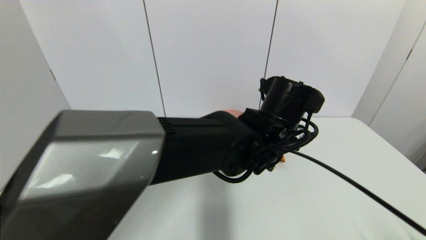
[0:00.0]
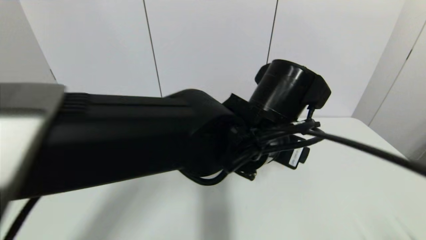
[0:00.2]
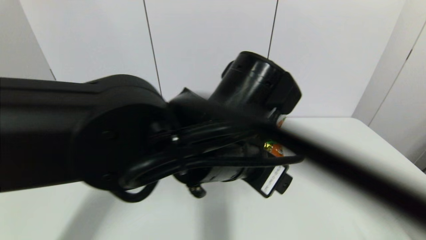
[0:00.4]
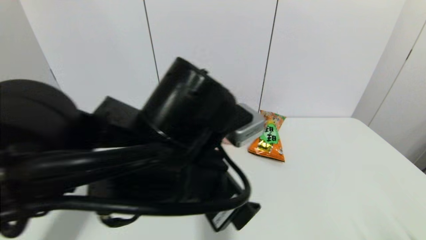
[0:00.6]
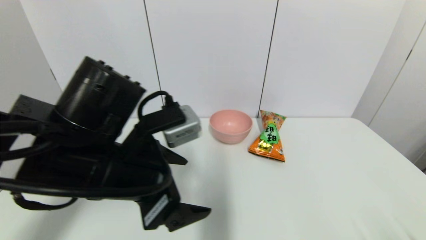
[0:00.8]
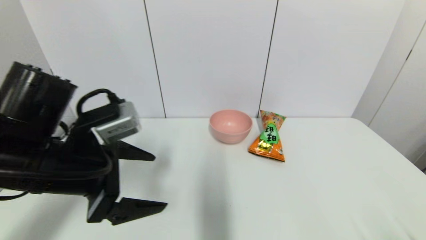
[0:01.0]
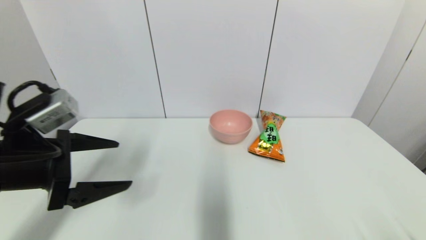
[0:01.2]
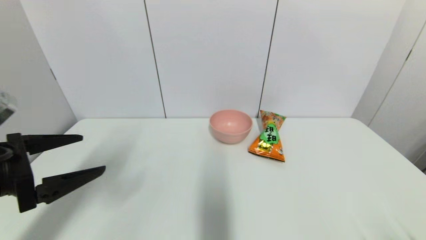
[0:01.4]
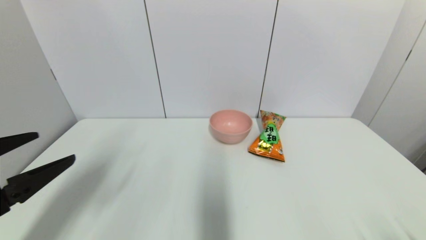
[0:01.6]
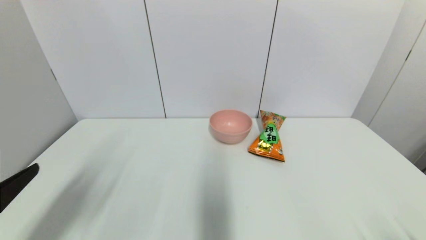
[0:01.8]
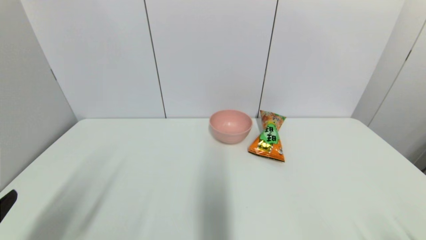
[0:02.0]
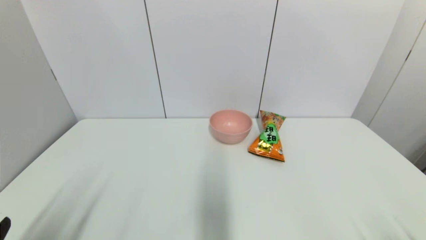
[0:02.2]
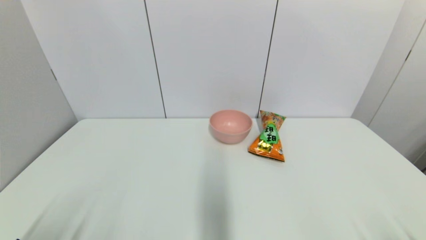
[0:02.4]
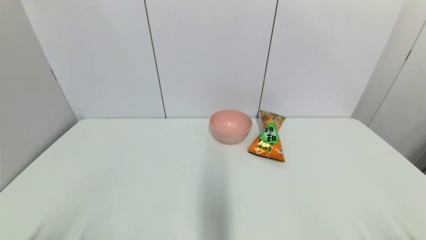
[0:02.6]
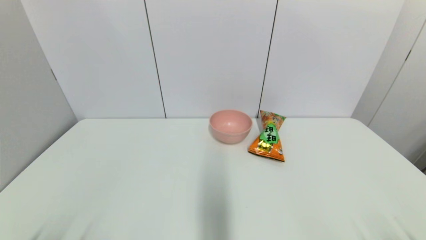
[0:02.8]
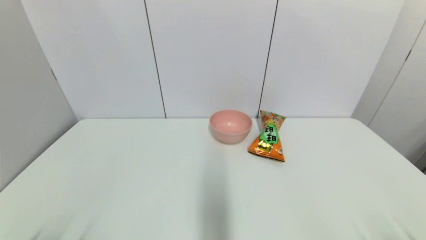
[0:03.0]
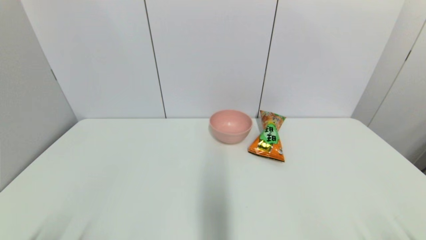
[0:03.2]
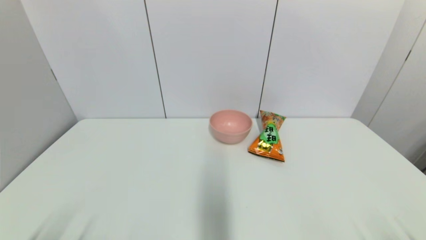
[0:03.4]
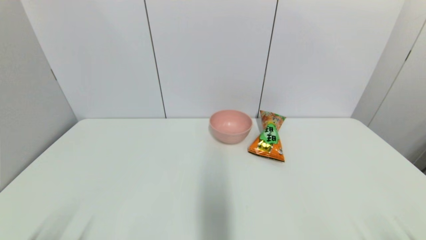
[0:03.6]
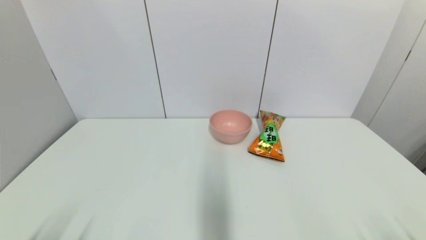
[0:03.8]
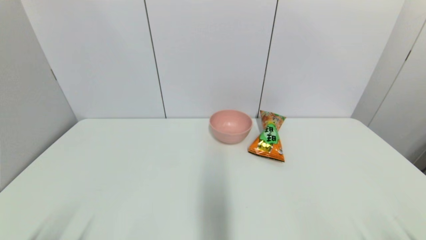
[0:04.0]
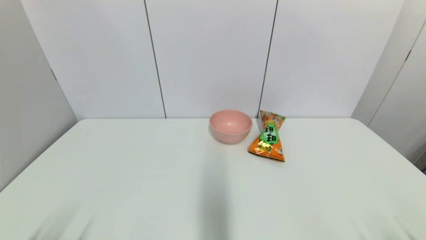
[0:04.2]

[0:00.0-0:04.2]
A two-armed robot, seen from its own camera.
0:00.0 to 0:01.4: The left gripper shifts approximately 40 cm to the left.
0:01.4 to 0:02.8: The left gripper heads downward and backward, covering about 20 cm.
0:02.8 to 0:04.2: The two grippers keep their place.
